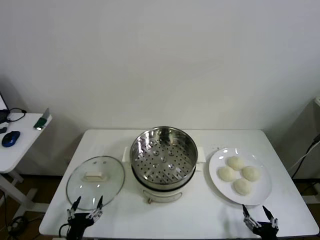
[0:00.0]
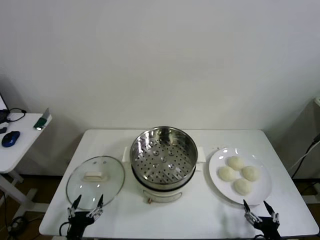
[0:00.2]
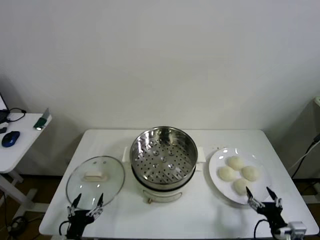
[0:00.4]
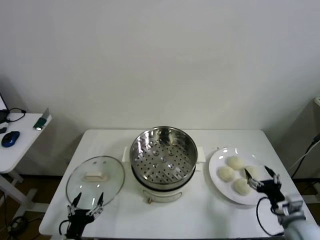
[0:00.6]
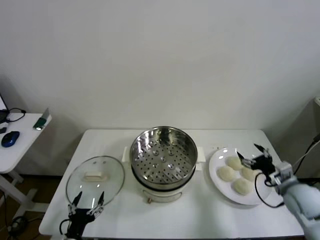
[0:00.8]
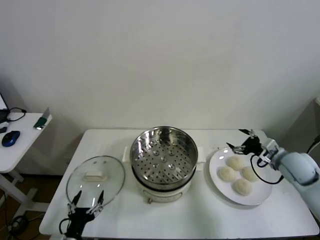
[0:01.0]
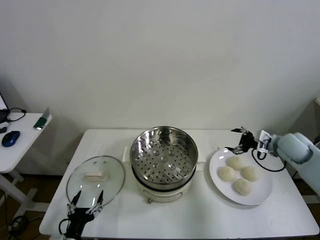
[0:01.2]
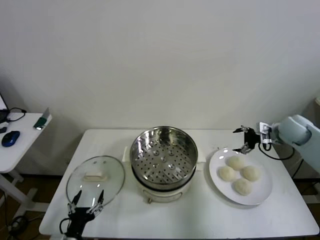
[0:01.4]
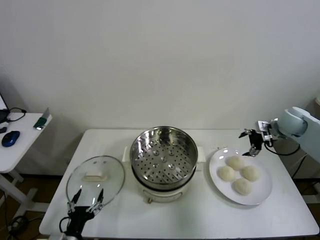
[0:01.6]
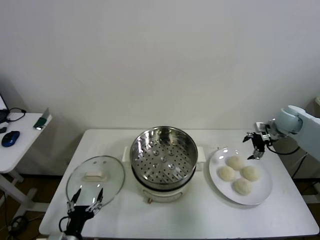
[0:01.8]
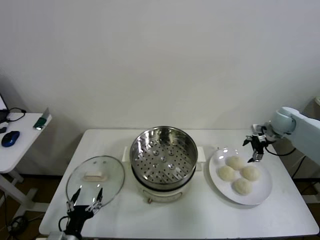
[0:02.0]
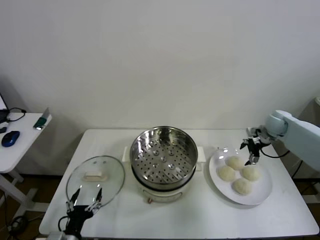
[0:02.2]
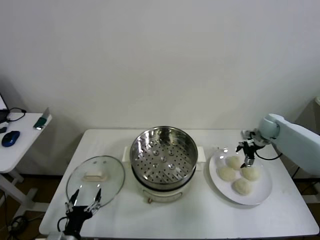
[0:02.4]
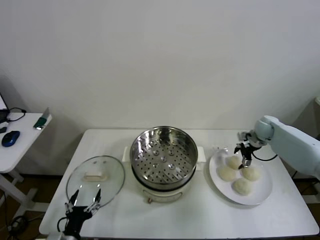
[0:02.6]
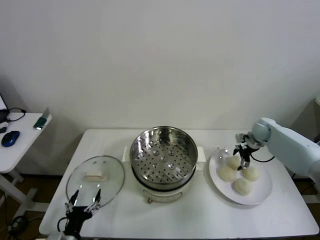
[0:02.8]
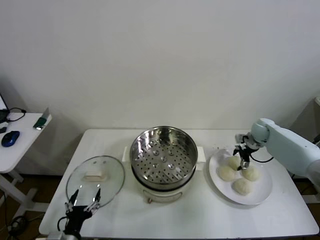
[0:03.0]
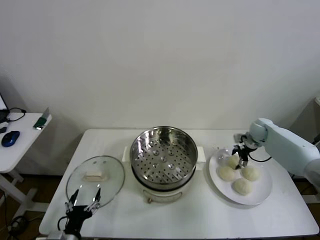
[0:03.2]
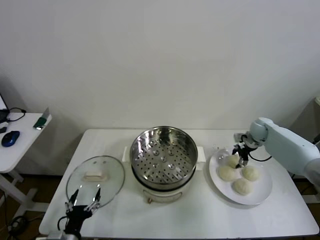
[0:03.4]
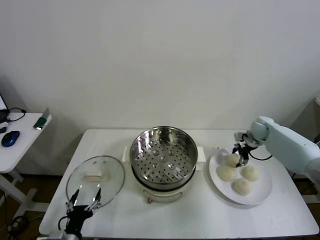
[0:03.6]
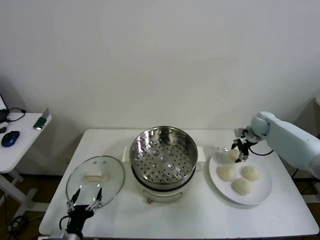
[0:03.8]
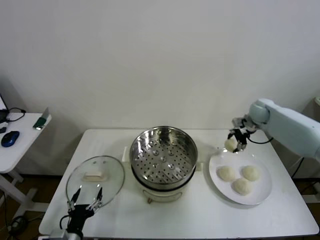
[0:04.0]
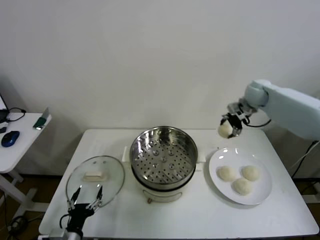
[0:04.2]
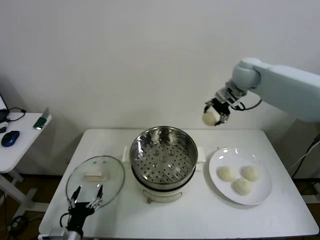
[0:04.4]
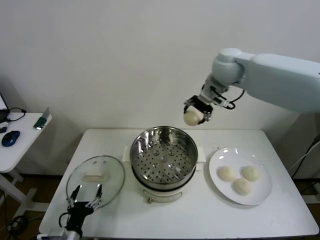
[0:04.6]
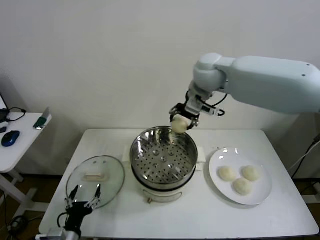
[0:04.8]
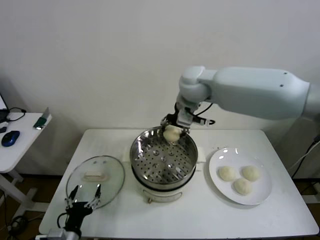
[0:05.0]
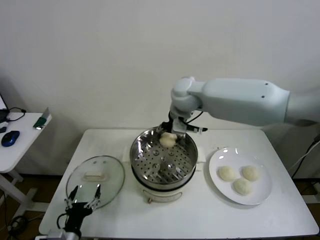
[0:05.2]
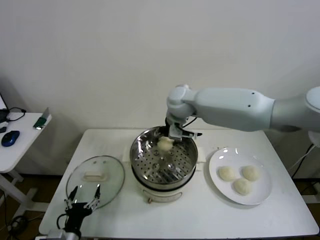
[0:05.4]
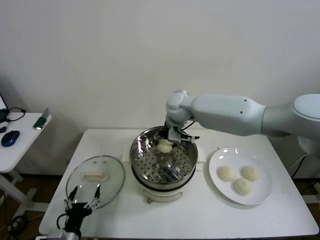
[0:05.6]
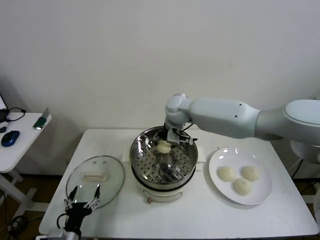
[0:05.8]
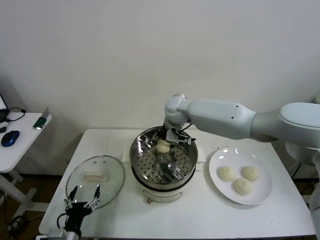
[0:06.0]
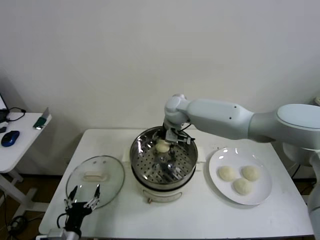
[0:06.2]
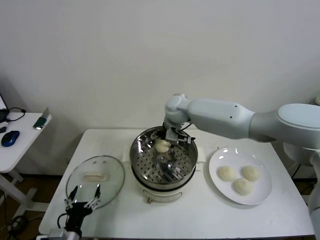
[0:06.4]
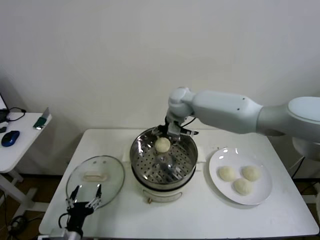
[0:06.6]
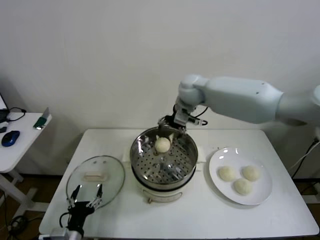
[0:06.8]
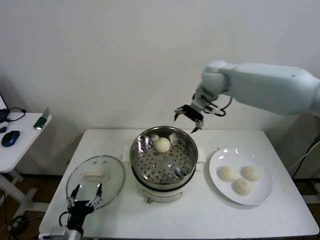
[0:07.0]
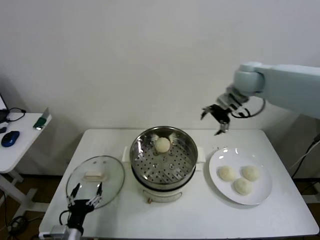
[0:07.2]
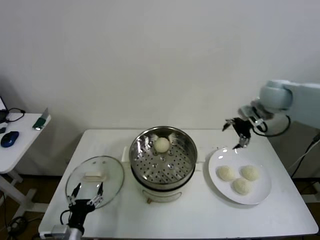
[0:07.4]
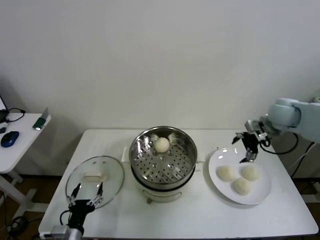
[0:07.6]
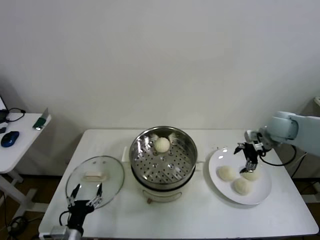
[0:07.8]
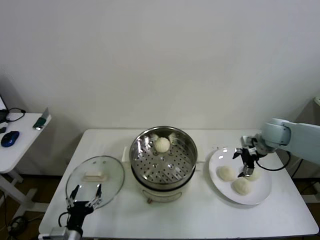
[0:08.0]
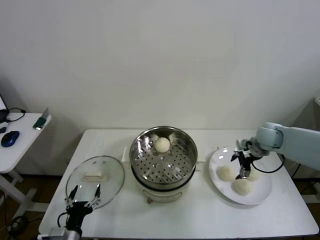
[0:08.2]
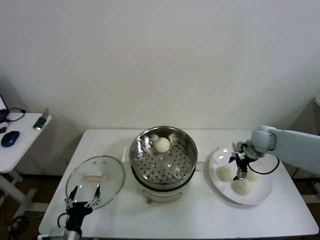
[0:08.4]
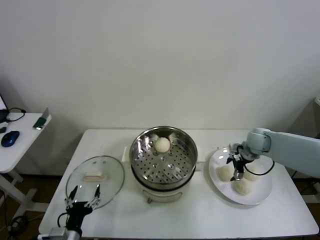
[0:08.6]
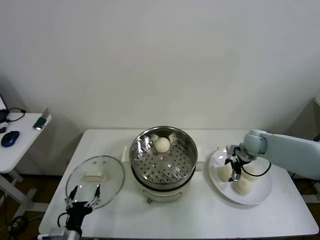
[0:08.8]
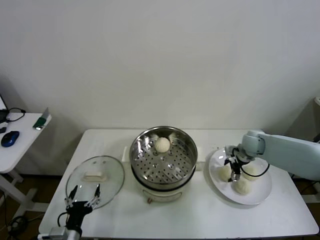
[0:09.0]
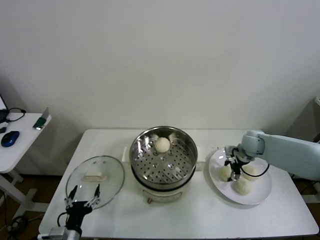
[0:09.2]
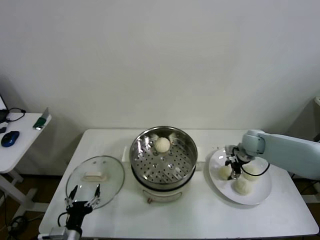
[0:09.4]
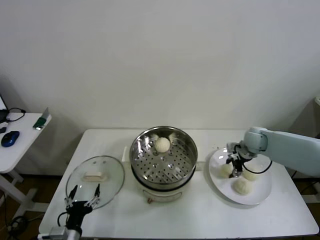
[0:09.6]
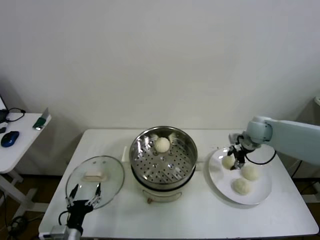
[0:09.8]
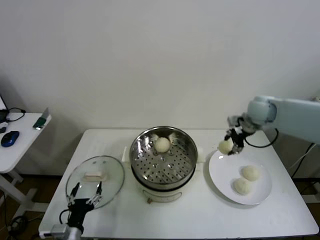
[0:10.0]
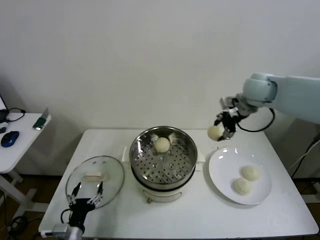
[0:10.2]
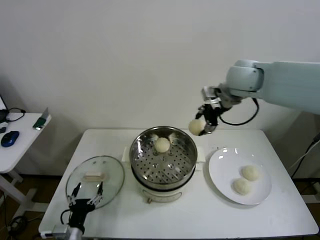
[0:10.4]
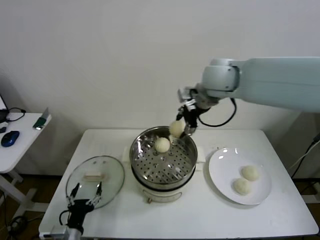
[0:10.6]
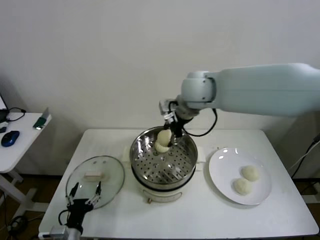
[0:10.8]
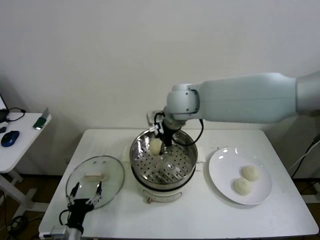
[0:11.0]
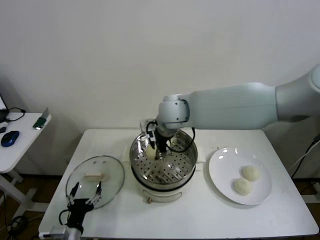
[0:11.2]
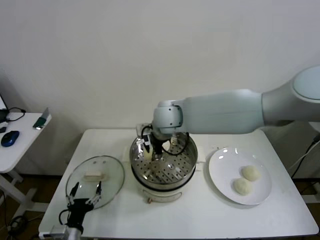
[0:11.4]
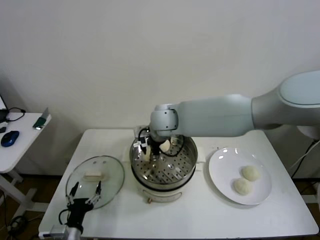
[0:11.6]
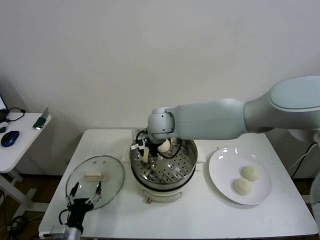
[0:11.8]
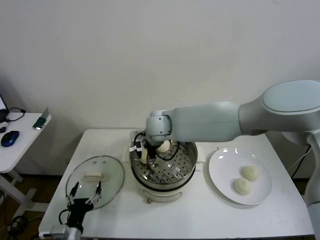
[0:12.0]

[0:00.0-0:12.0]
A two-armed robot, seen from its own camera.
Step, 0.0 to 3.2 s: Grasp the baozi in the plate with right gripper.
Step, 3.6 to 6.6 s: Place the baozi on the steamer with right gripper.
Step, 6.8 to 9.2 s: Grasp the baozi in the plate with right gripper.
1.6 to 3.0 s: The right gripper moves downward and forward, some 10 cm.
3.0 to 4.4 s: The right gripper moves upward and to the left, some 35 cm, and closes up.
4.4 to 6.0 s: The right gripper goes about 25 cm to the left and downward.
6.0 to 7.6 s: The right gripper goes roughly 35 cm to the right, and opens up.
7.6 to 9.0 s: The right gripper heads downward, covering approximately 15 cm.
9.0 to 10.4 s: The right gripper shifts roughly 35 cm upward and to the left, and closes its fingers.
10.4 to 12.0 s: The right gripper is displaced to the left and downward by approximately 25 cm.

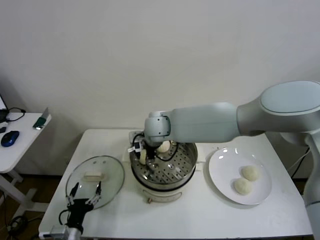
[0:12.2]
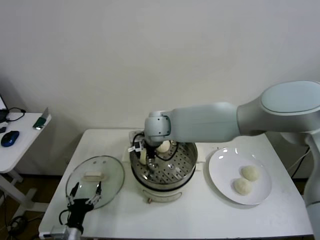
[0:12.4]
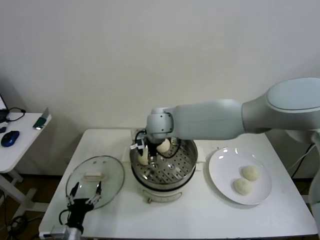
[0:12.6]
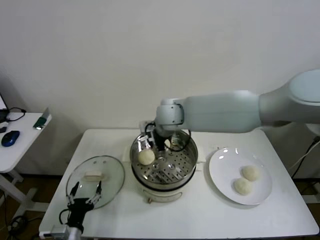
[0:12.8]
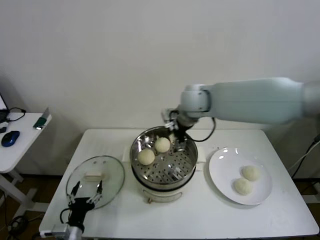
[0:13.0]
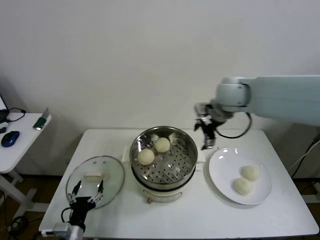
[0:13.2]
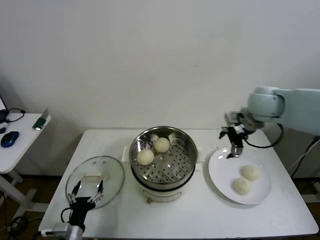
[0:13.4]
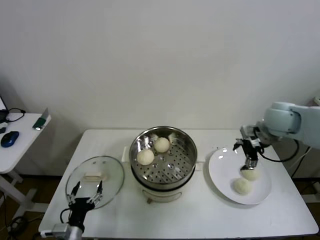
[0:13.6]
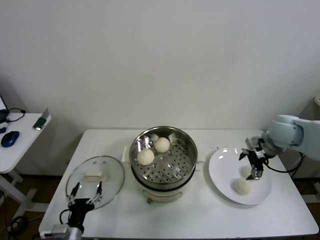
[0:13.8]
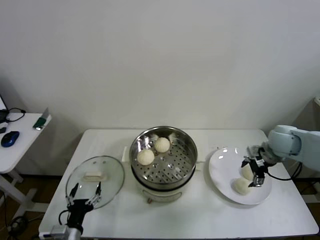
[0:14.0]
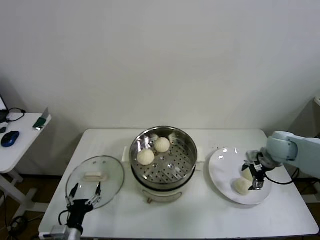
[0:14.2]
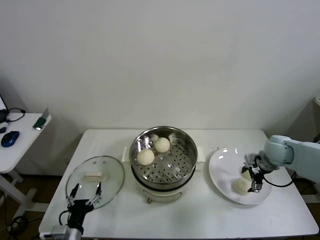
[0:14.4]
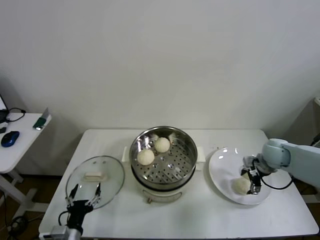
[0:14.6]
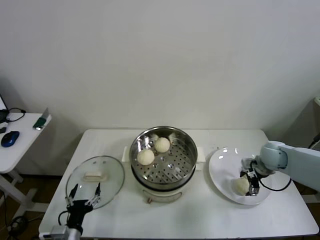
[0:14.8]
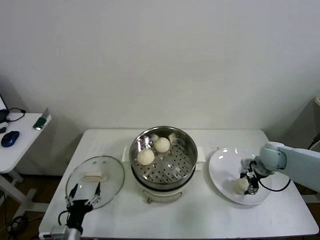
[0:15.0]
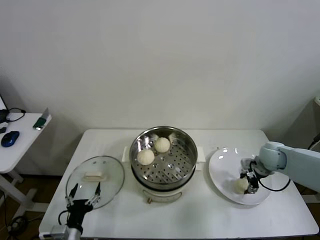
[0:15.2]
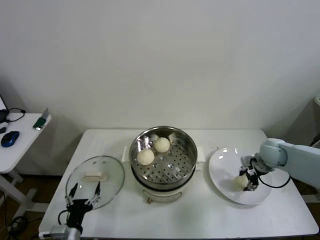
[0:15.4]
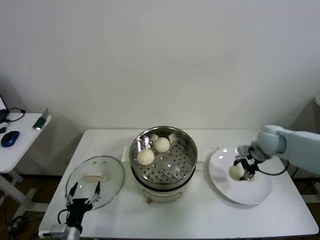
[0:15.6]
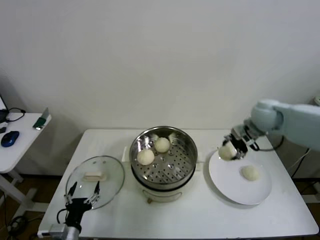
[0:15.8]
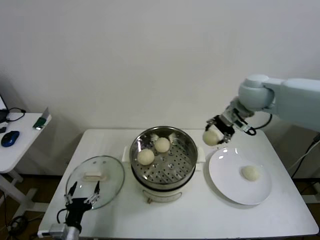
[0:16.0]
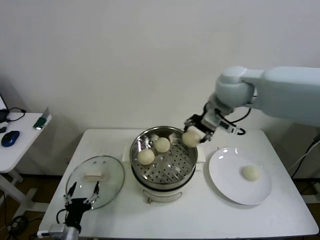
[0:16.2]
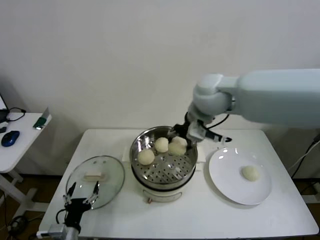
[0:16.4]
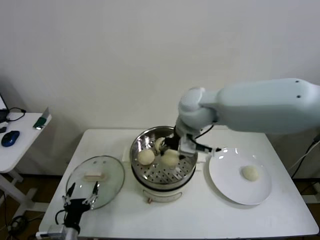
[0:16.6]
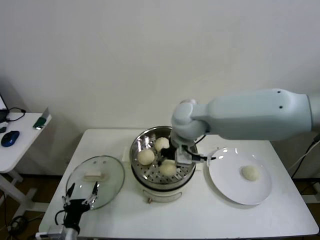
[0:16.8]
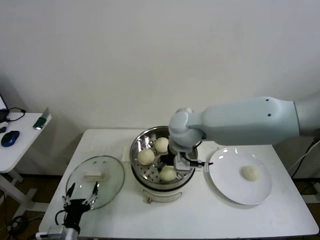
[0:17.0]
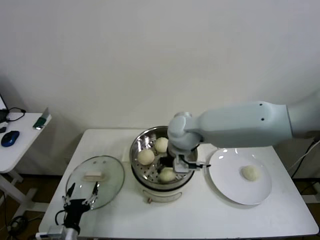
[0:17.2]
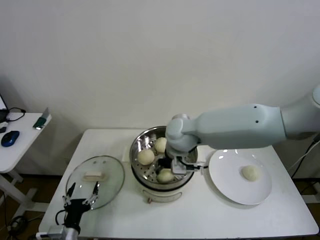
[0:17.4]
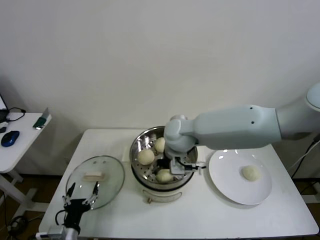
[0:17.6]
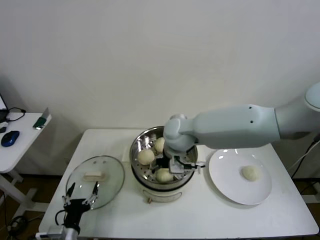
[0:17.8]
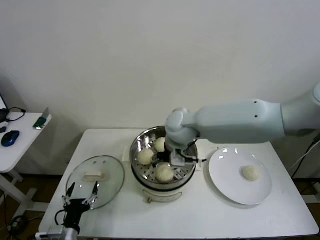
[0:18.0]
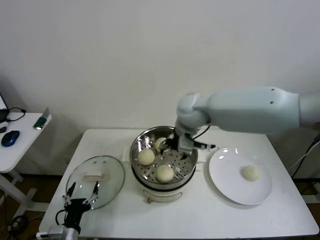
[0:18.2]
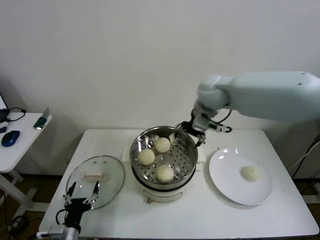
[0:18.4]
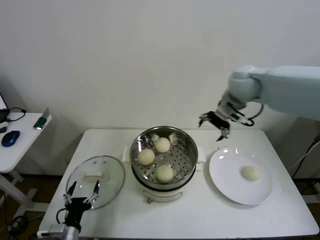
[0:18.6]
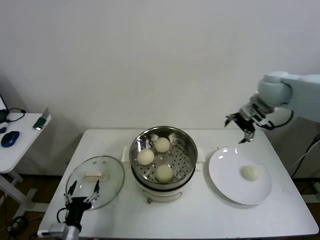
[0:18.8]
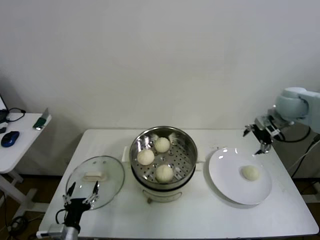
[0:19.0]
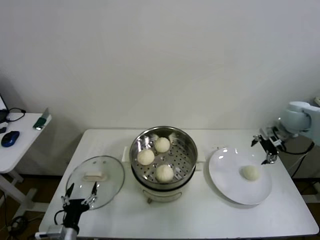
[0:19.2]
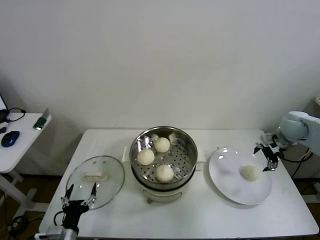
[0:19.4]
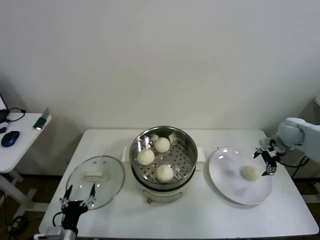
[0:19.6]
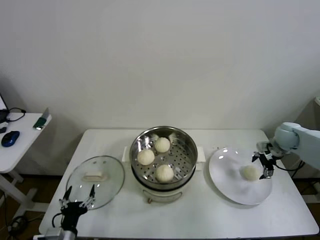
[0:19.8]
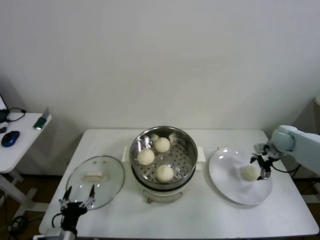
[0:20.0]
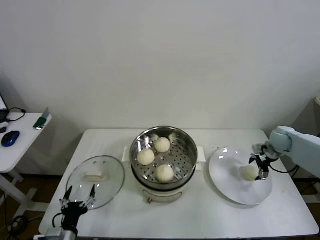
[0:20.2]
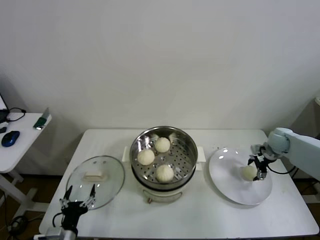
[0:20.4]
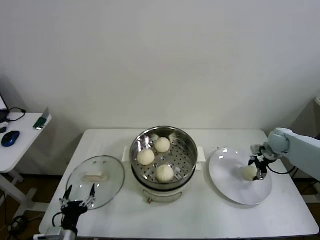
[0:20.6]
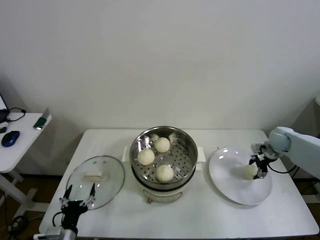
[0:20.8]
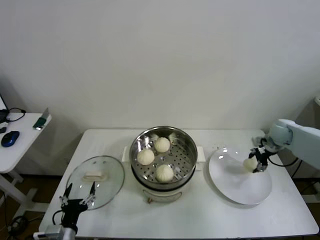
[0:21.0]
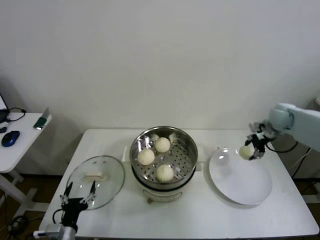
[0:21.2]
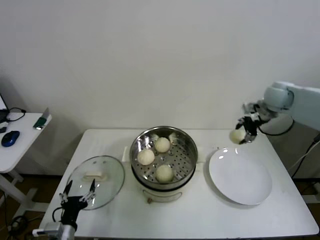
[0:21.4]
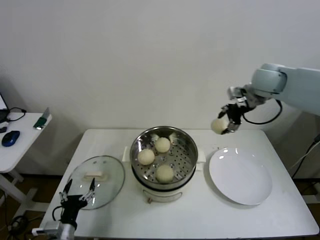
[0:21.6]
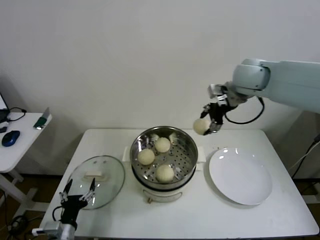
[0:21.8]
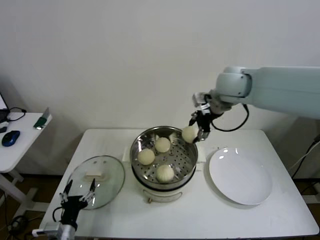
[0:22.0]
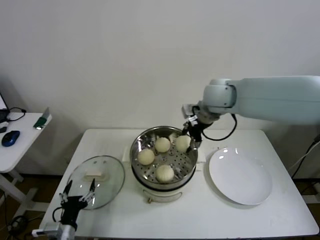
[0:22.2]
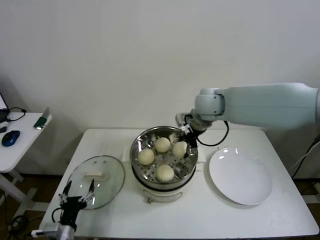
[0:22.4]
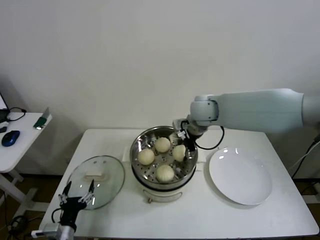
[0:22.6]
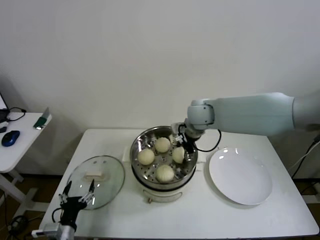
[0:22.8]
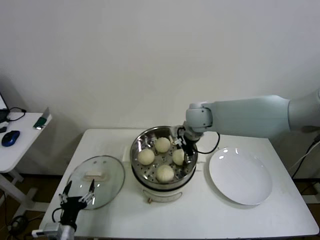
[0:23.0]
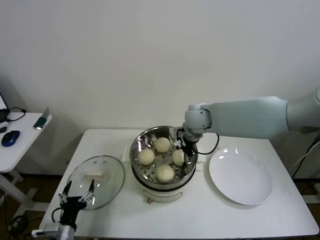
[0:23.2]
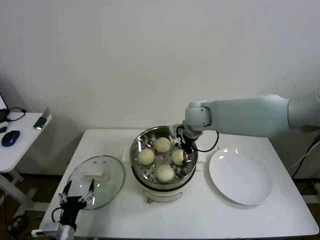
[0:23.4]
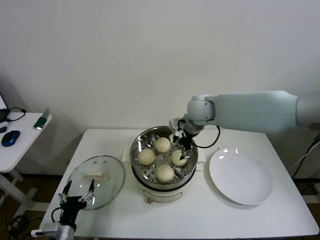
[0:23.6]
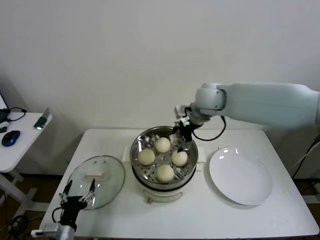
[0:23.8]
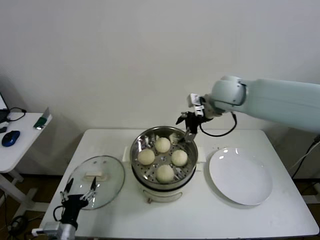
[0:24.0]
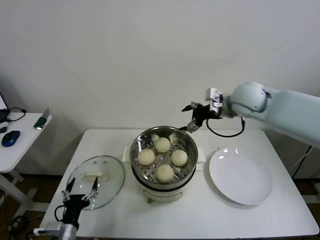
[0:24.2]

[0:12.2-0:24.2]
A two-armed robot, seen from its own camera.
Step, 12.8 to 15.0 s: Grasp the baozi in the plate with right gripper.
Step, 15.2 to 18.0 s: Place the baozi on the steamer with right gripper.
Step, 18.2 to 20.6 s: Grasp the baozi in the plate with right gripper.
Step, 20.8 to 23.4 s: Place the baozi on the steamer with right gripper.
12.2 to 13.8 s: The right gripper is displaced to the right by roughly 40 cm, and opens its fingers.
13.8 to 15.2 s: The right gripper travels downward by approximately 10 cm, and closes.
15.2 to 16.6 s: The right gripper moves to the left and upward, approximately 40 cm.
16.6 to 18.2 s: The right gripper opens.
18.2 to 19.8 s: The right gripper travels to the right and downward by approximately 40 cm.
19.8 to 21.2 s: The right gripper heads upward, covering some 5 cm, and closes up.
21.2 to 22.6 s: The right gripper travels to the left by about 30 cm.
22.6 to 24.2 s: The right gripper heads to the right, covering some 10 cm, and opens.
